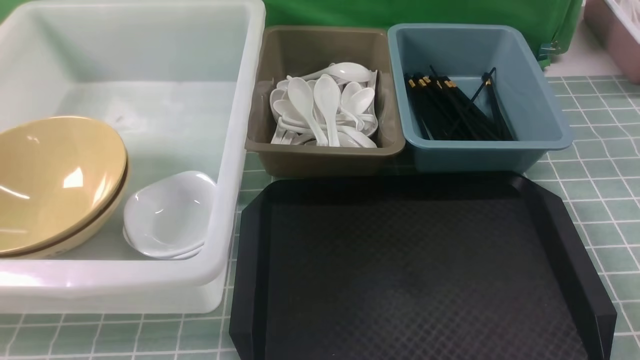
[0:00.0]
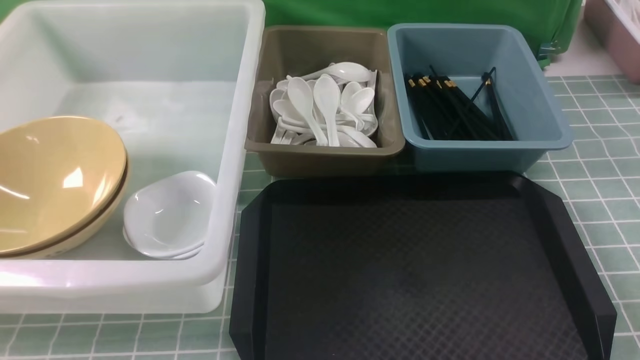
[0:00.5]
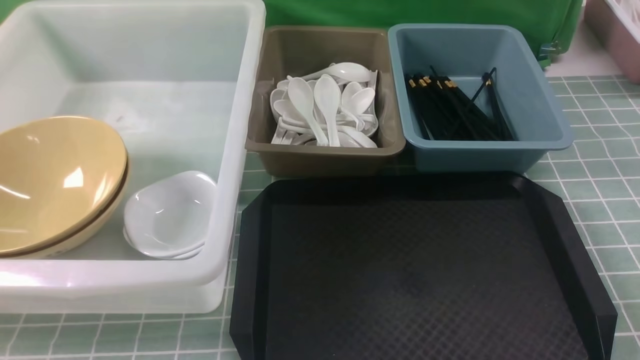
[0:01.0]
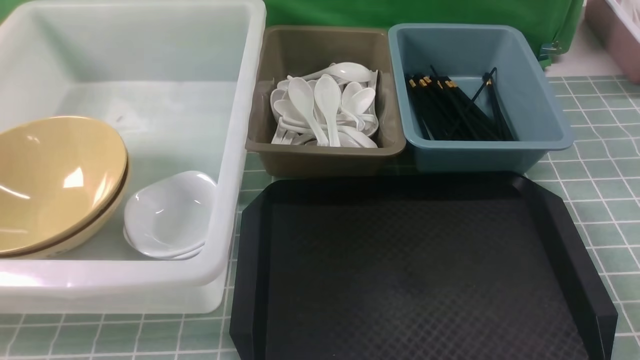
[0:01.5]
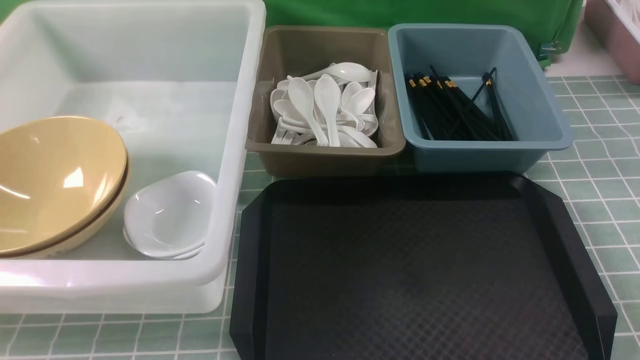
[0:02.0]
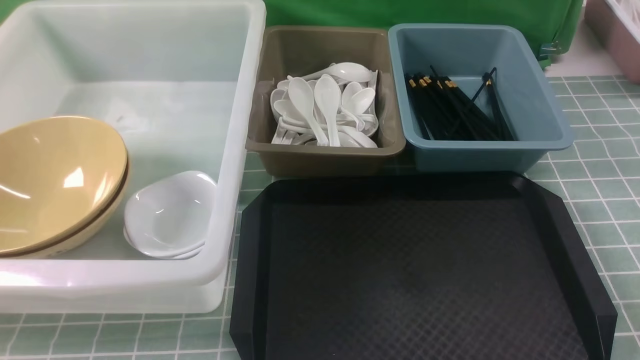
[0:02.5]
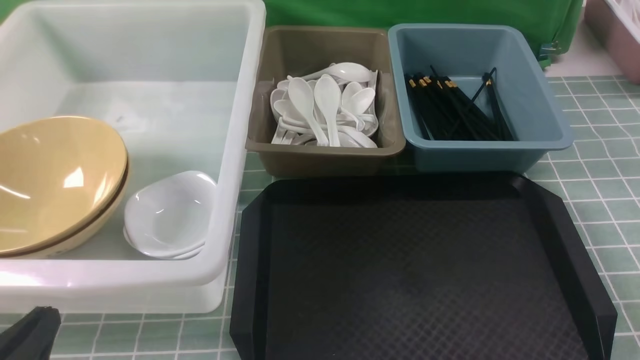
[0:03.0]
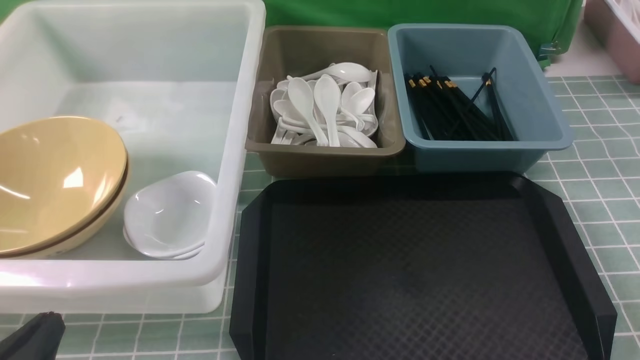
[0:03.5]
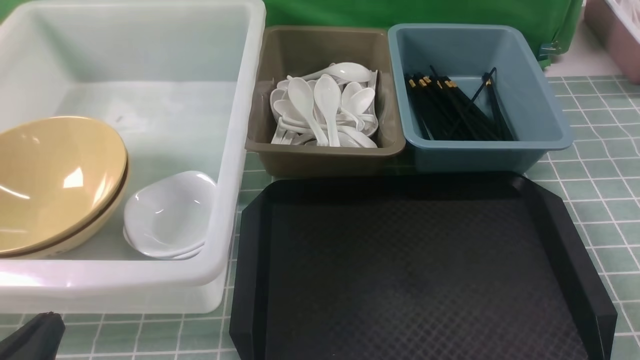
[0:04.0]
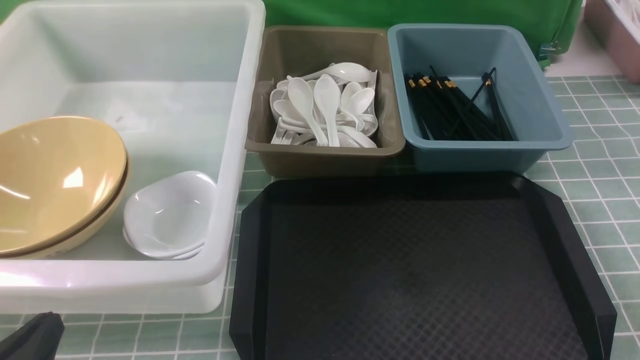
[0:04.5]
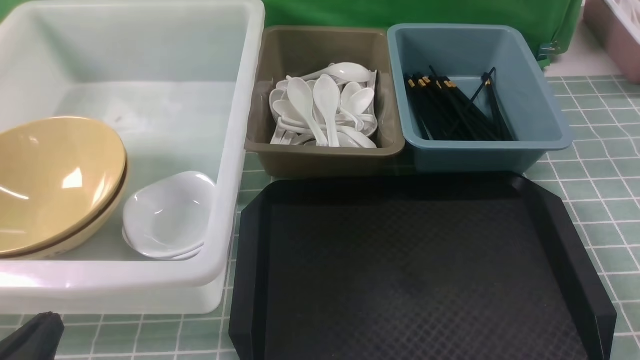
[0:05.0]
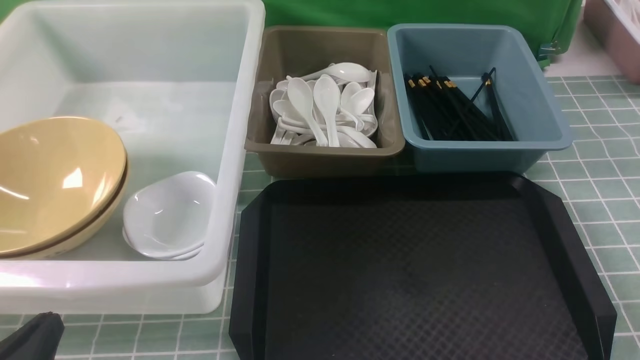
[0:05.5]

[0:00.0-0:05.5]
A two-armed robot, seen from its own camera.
Task of the whole recording: on blue table put chopsticks spoon bowls plates into blue grey white boxes.
0:02.0 to 0:03.5: The left gripper moves downward, approximately 10 cm.
0:03.5 to 0:05.5: Both grippers stay put.
